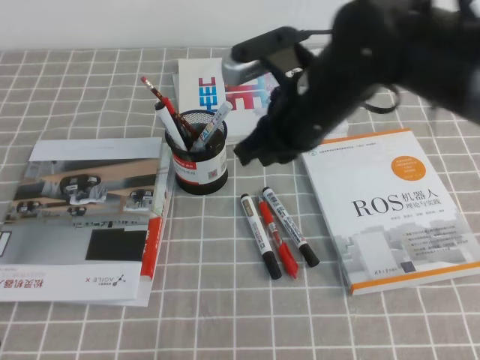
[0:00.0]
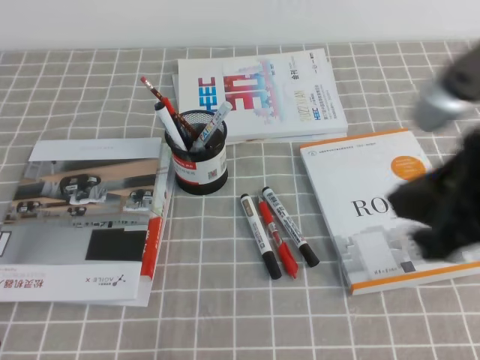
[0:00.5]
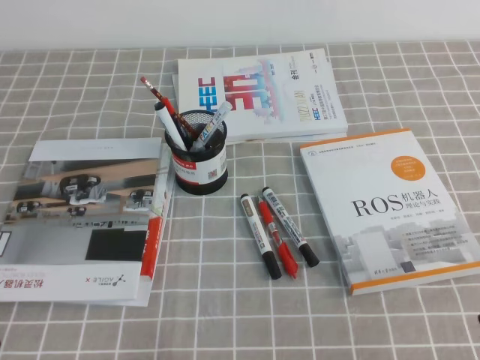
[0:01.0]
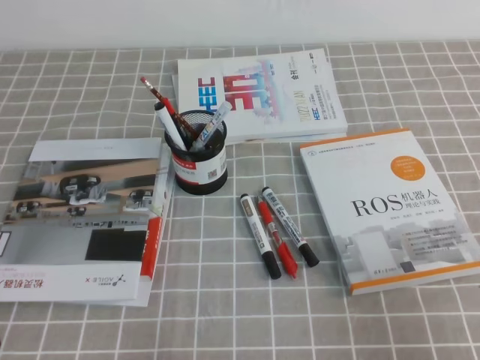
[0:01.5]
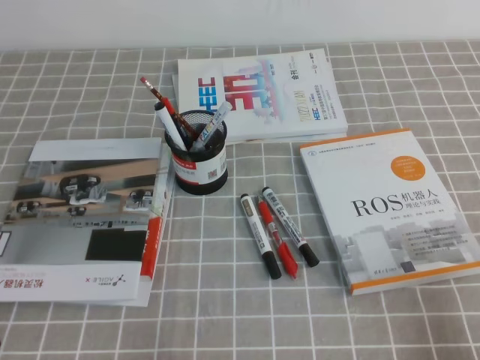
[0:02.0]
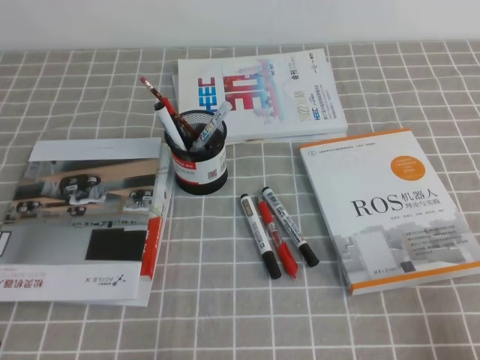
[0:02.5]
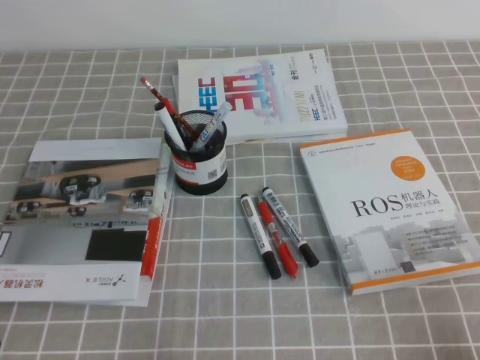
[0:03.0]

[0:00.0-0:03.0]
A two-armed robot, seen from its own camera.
Step, 0:00.0 to 0:03.0: Pick up the pen from the pen holder.
0:00.0 to 0:01.5: The right gripper moves backward and to the right, approximately 30 cm.
0:01.5 to 0:03.0: The right gripper heads downward, covering some 5 cm.
